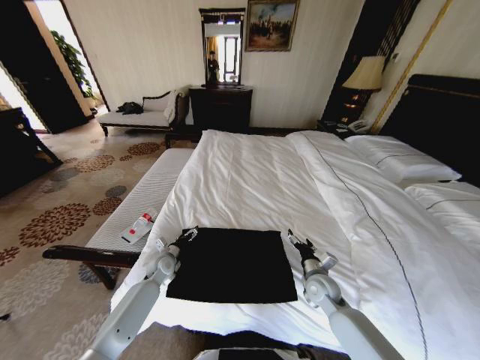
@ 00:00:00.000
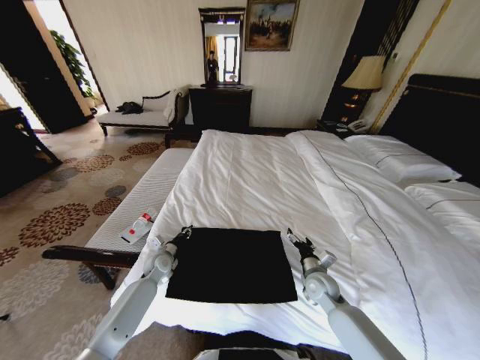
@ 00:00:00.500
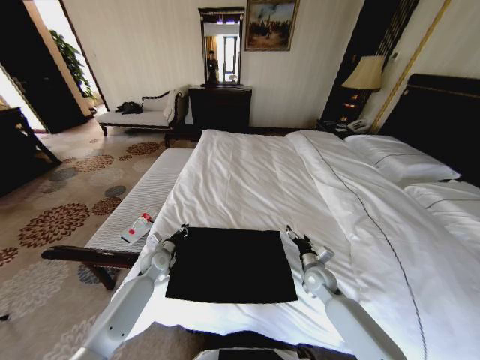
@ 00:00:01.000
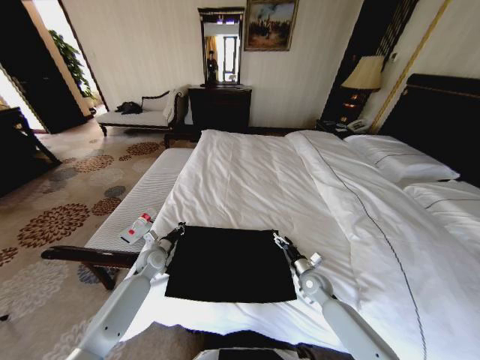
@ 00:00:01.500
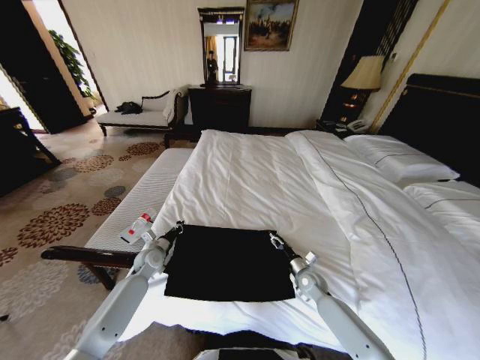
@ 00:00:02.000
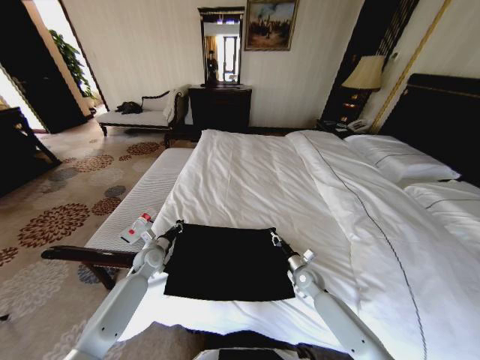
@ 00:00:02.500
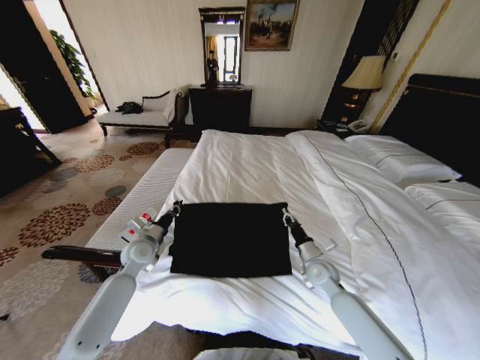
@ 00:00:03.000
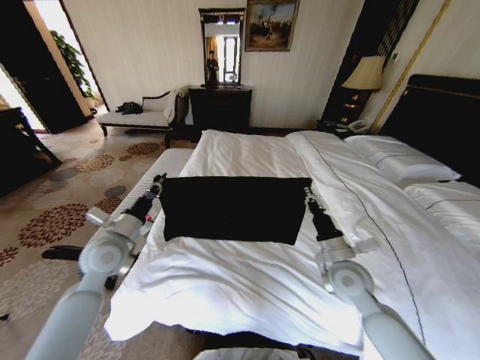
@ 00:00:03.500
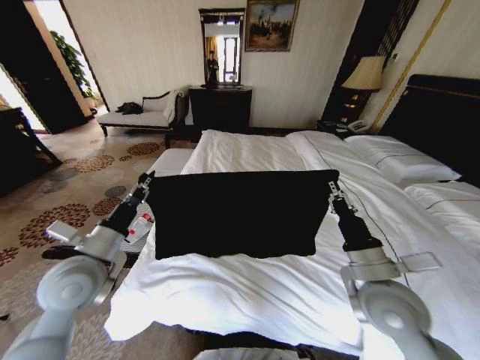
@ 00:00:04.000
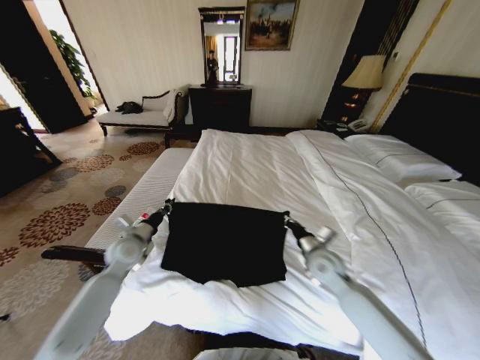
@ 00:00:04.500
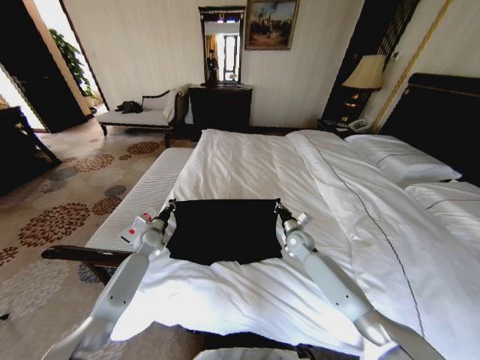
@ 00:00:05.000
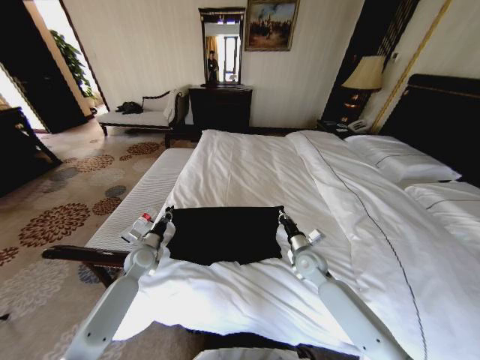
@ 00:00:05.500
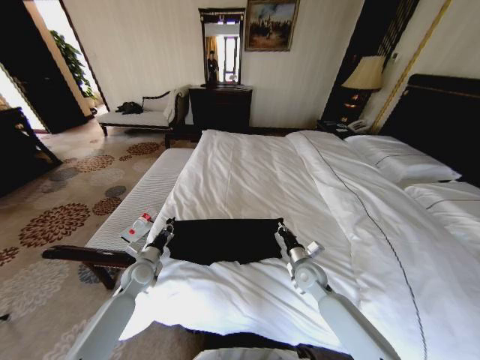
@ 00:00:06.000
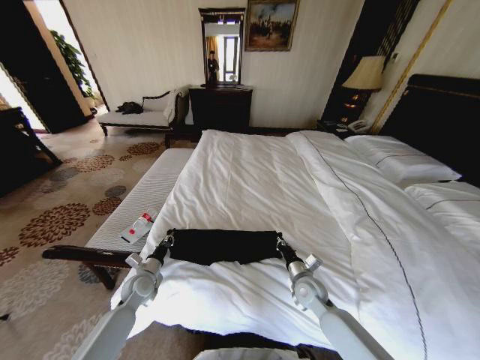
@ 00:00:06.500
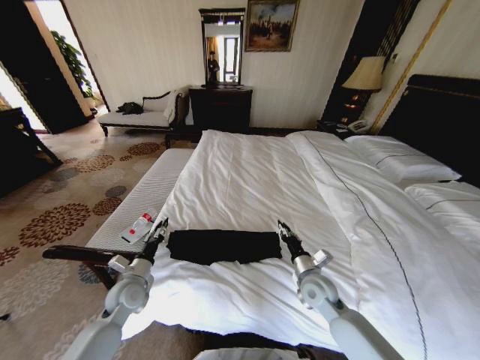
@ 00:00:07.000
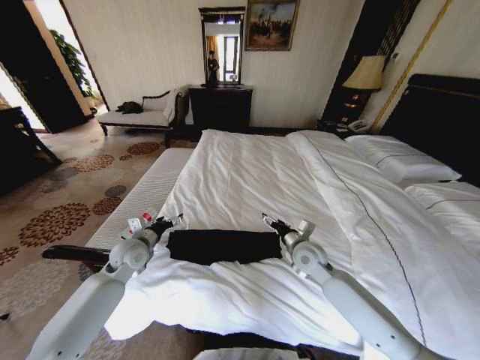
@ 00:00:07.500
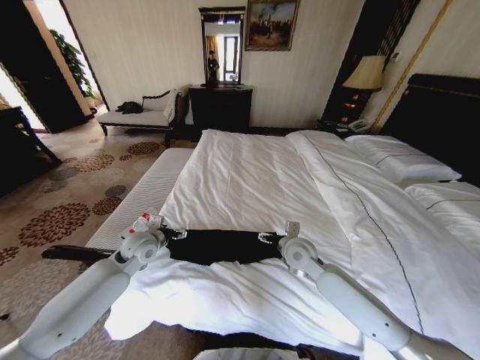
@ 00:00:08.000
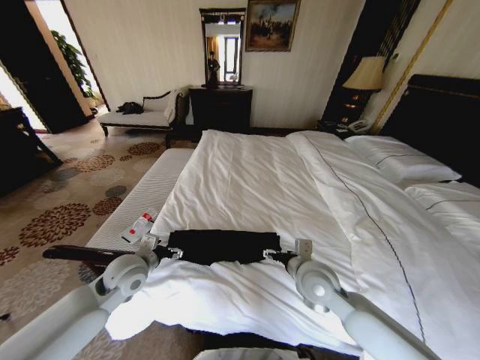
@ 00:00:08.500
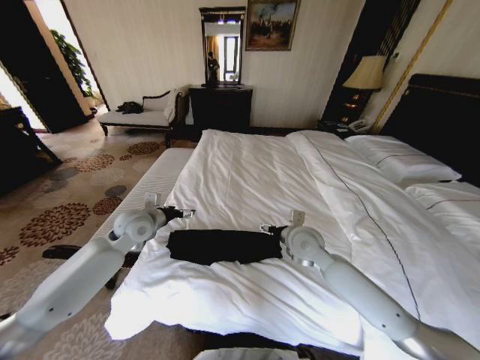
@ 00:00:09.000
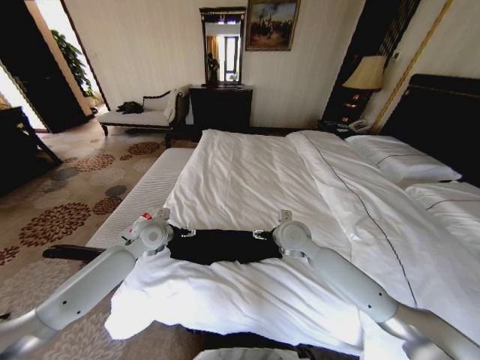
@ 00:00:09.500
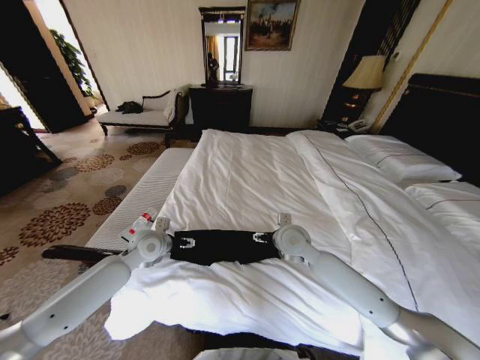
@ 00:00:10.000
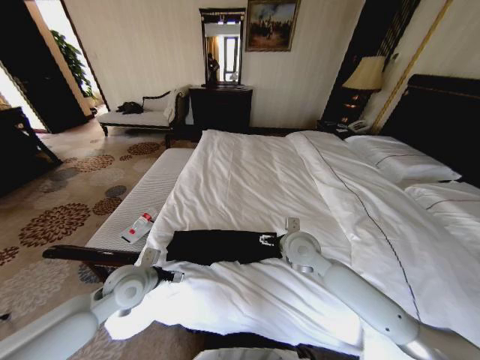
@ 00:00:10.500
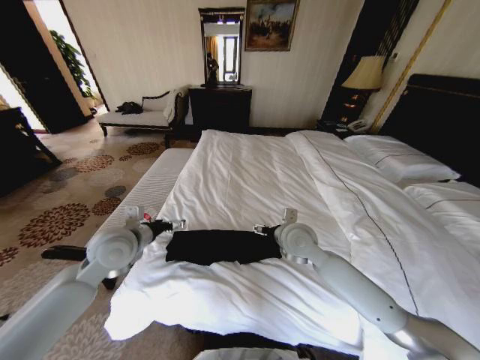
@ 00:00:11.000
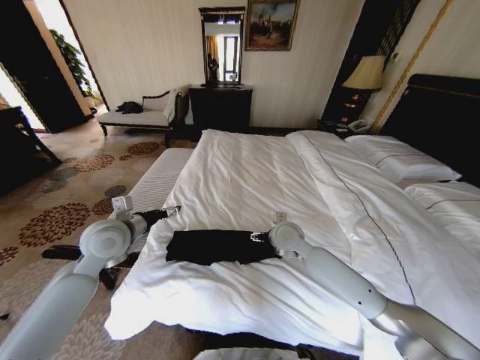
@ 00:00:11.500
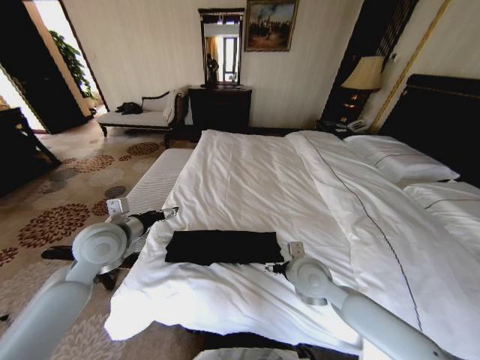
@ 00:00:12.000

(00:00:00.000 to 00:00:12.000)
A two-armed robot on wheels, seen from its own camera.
Task of the whole recording: Fold the clothes on the bed.
00:00:00.000 - 00:00:02.000: The right gripper heads downward, covering some 5 cm, while the left gripper changes place by some 5 cm, and closes up.
00:00:02.000 - 00:00:04.000: The grippers both shift upward and backward by roughly 30 cm. The right gripper closes its fingers.
00:00:04.000 - 00:00:06.000: The two grippers go roughly 25 cm downward and forward.
00:00:06.000 - 00:00:08.000: The right gripper travels upward and to the left by about 10 cm, and opens. Meanwhile the left gripper shifts about 15 cm upward, and opens.
00:00:08.000 - 00:00:10.000: The right gripper travels backward and back again, roughly 10 cm each way; the left gripper travels backward and back again, some 10 cm each way.
00:00:10.000 - 00:00:12.000: The left gripper shifts roughly 10 cm upward and backward. Meanwhile the right gripper moves backward, some 10 cm.

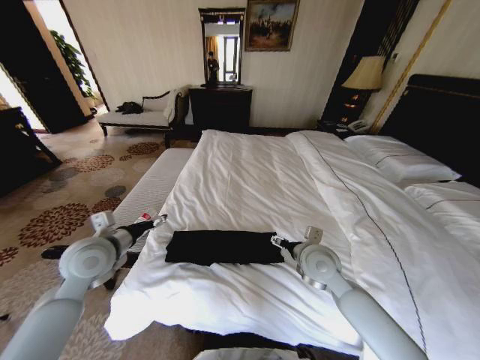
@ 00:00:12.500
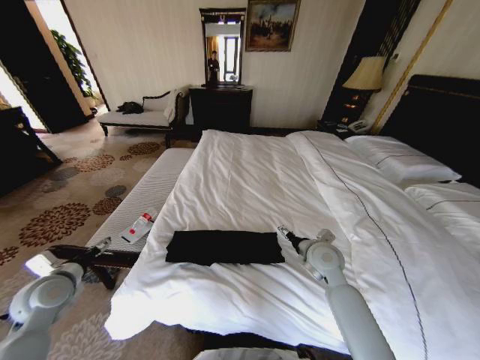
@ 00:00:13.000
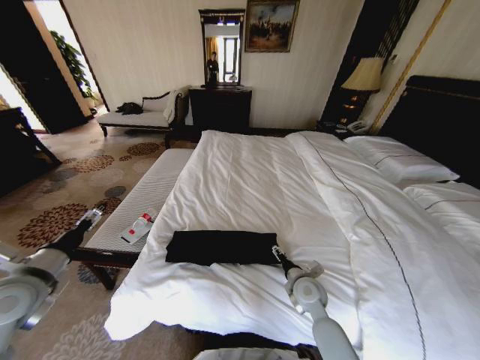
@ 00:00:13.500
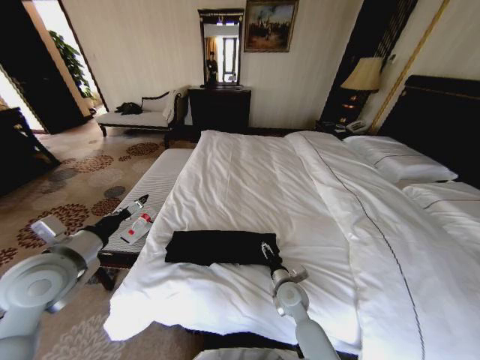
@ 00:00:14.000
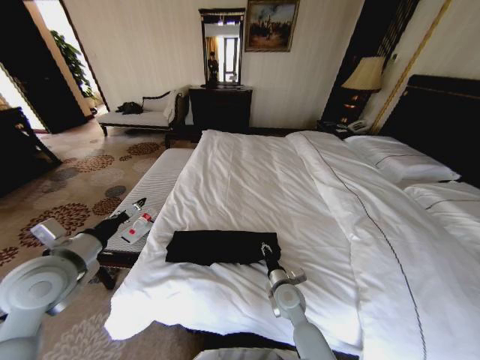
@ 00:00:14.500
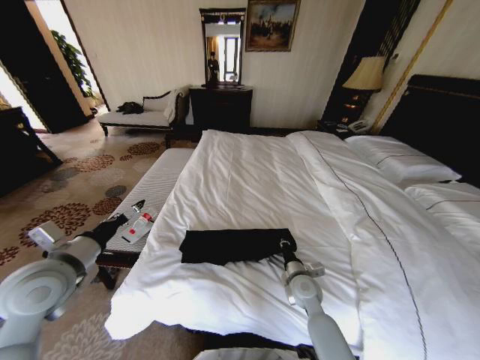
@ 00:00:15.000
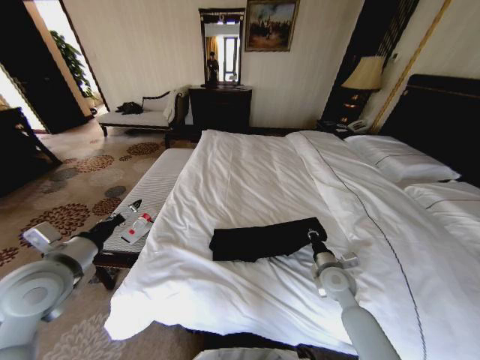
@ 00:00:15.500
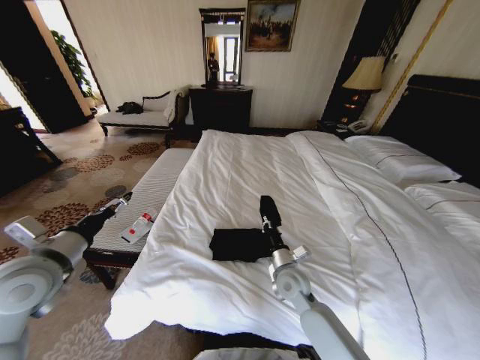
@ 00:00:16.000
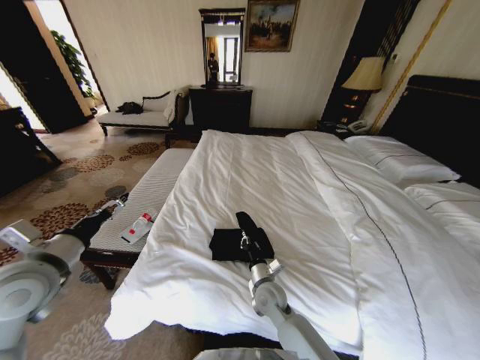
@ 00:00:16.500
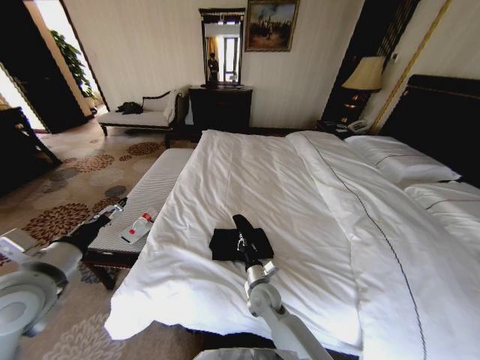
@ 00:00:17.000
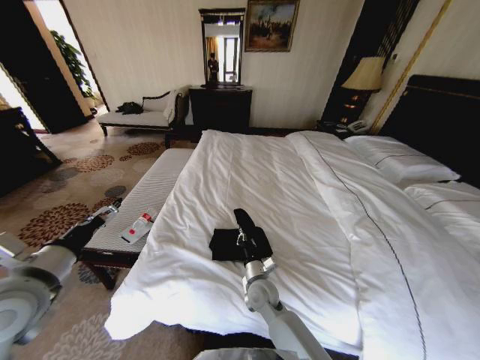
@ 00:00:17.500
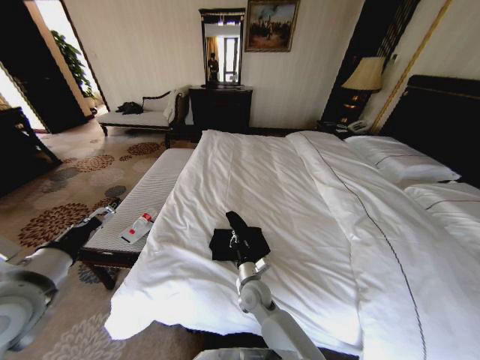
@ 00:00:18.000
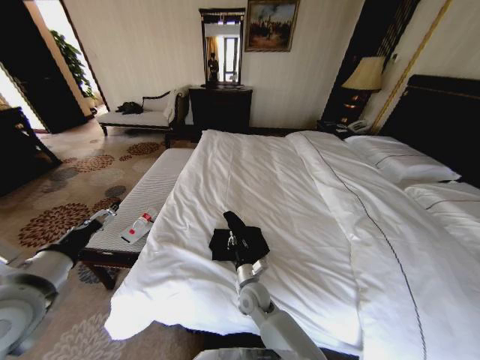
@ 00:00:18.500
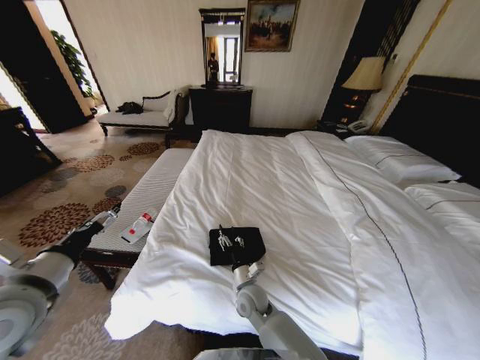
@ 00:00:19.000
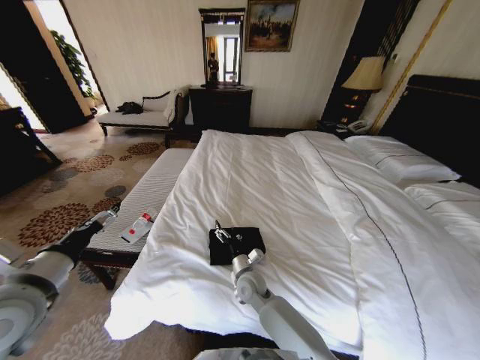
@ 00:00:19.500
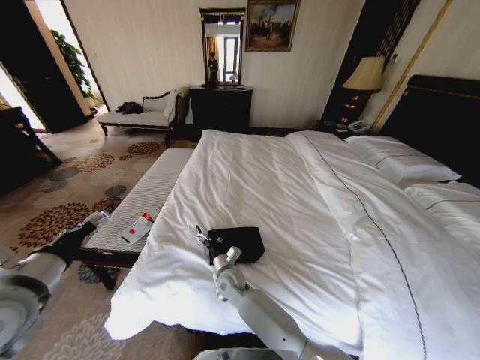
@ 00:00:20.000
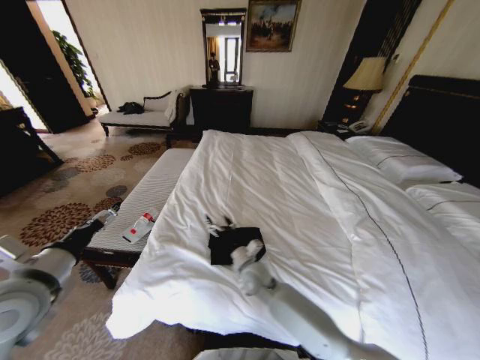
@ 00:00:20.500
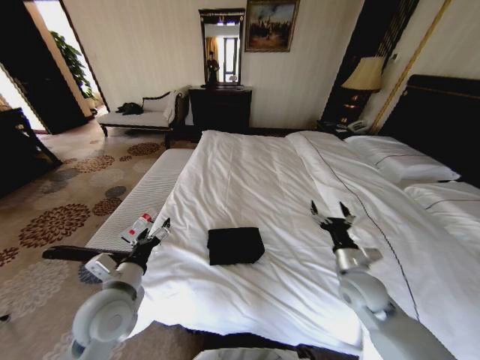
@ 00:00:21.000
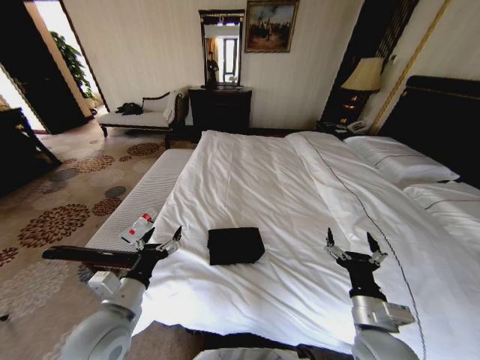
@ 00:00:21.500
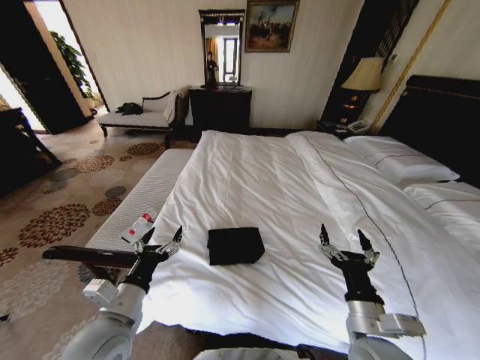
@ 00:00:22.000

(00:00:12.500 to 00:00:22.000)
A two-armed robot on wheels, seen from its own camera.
Task of the whole recording: Fold the clothes on the bed.
00:00:12.500 - 00:00:14.500: The left gripper is displaced backward by roughly 5 cm, and reaches roughly 10 cm to the left, then returns. The right gripper is displaced downward by some 15 cm, and closes its fingers.
00:00:14.500 - 00:00:16.500: The right gripper moves about 15 cm to the right and comes back, and closes up.
00:00:16.500 - 00:00:18.000: The right gripper moves approximately 5 cm.
00:00:18.000 - 00:00:20.000: The right gripper goes roughly 10 cm to the left, and opens its fingers.
00:00:20.000 - 00:00:22.000: The left gripper is displaced to the right and downward by some 15 cm. Meanwhile the right gripper travels to the right, backward and upward by roughly 40 cm.
